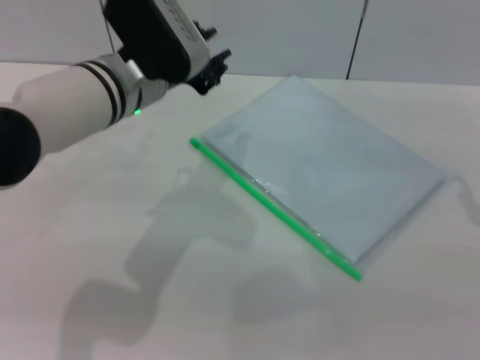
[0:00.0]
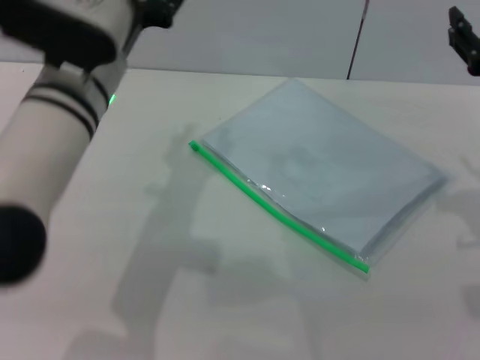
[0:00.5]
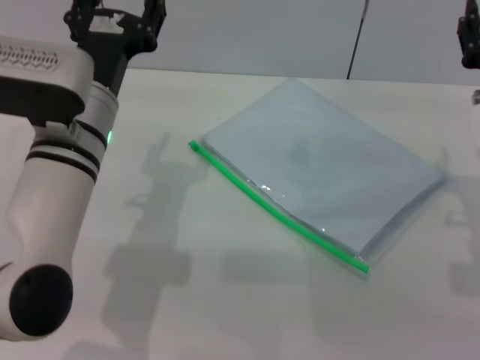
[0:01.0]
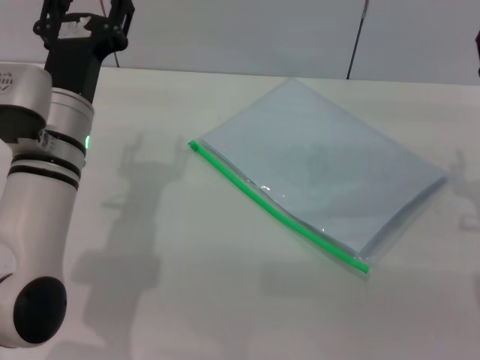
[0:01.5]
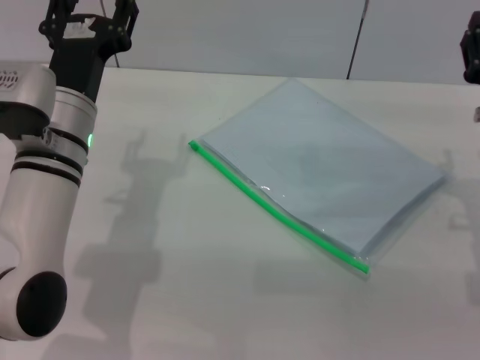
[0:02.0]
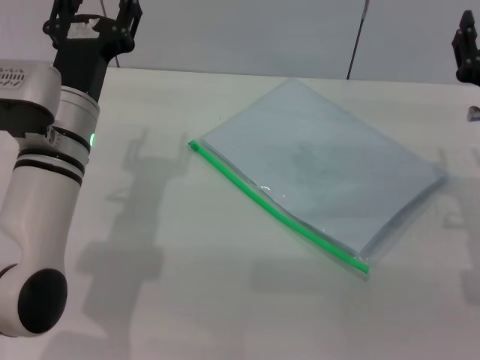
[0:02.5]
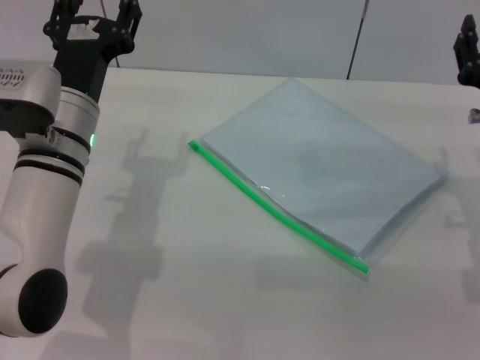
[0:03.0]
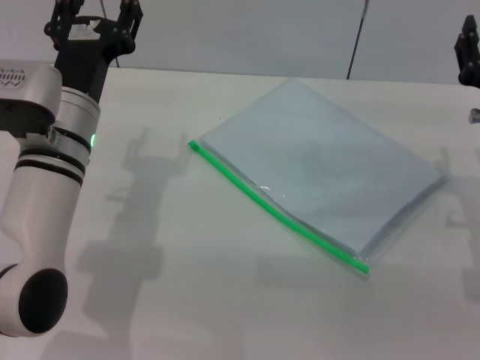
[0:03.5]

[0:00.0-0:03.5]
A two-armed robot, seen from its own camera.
0:00.0 to 0:02.0: The right gripper is displaced downward and to the left by about 10 cm, and opens, while the left gripper heads downward, covering roughly 5 cm, and opens up.
0:02.0 to 0:03.5: The two grippers keep their place.
